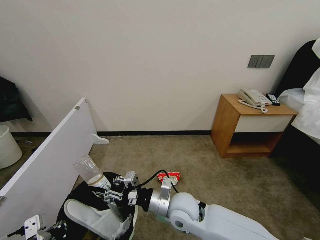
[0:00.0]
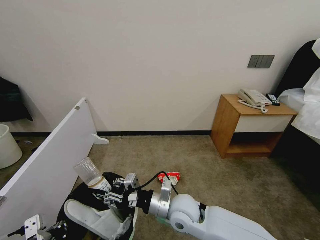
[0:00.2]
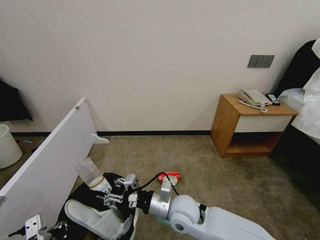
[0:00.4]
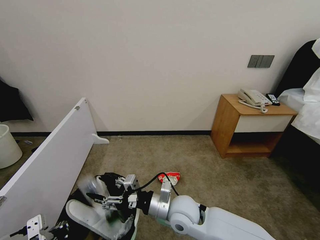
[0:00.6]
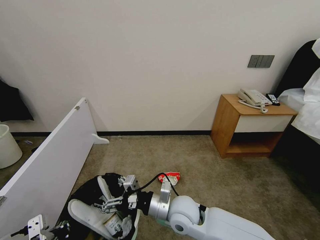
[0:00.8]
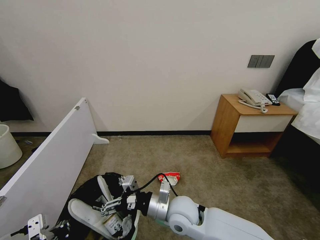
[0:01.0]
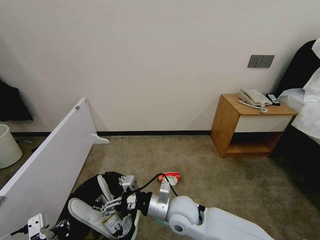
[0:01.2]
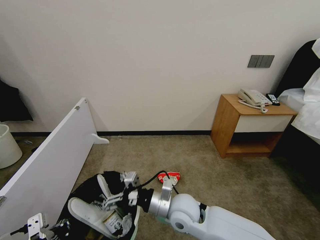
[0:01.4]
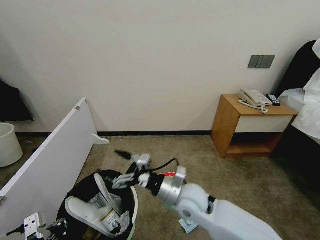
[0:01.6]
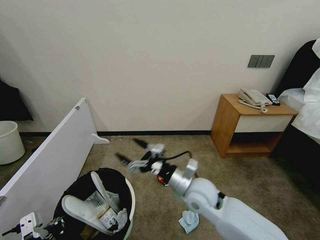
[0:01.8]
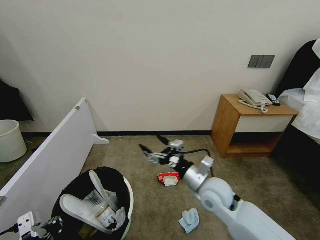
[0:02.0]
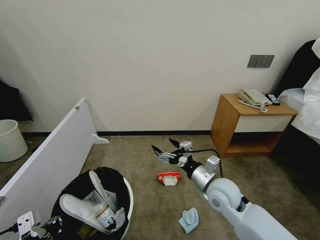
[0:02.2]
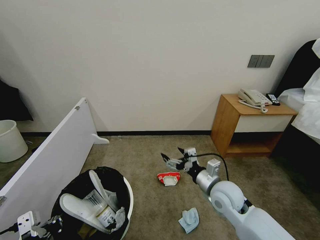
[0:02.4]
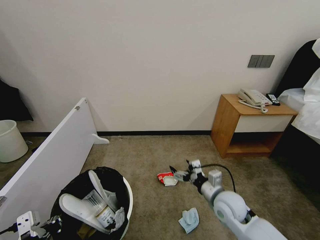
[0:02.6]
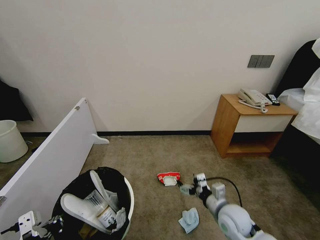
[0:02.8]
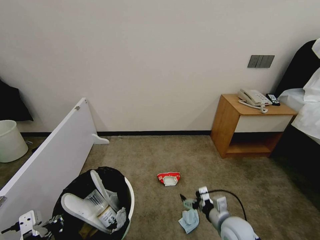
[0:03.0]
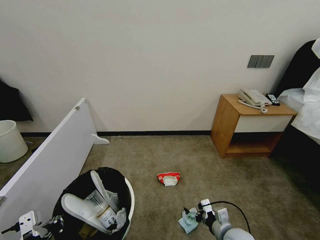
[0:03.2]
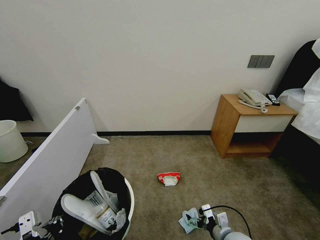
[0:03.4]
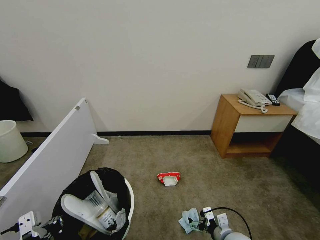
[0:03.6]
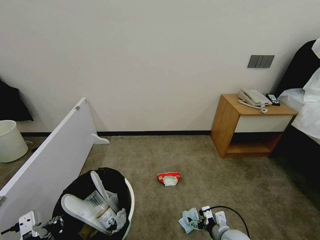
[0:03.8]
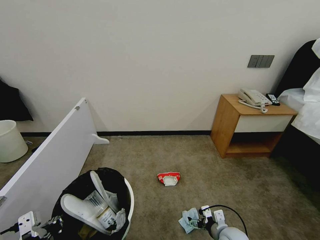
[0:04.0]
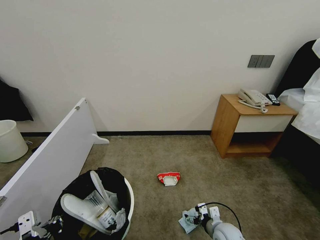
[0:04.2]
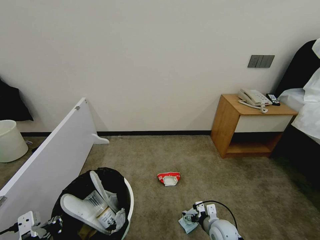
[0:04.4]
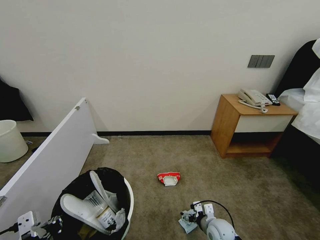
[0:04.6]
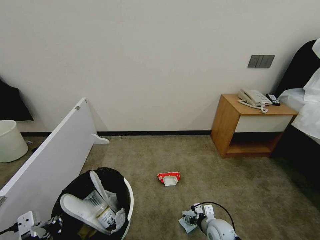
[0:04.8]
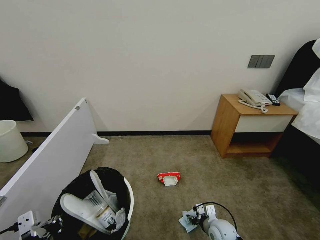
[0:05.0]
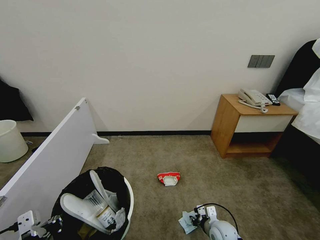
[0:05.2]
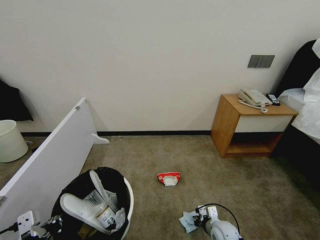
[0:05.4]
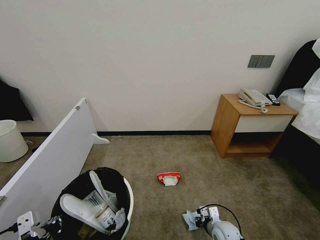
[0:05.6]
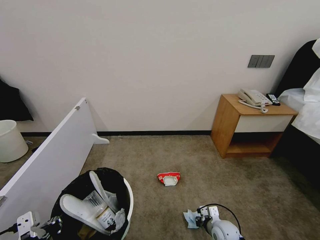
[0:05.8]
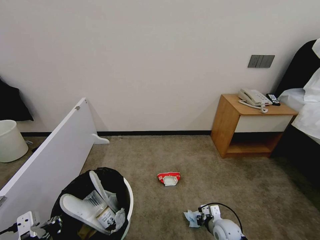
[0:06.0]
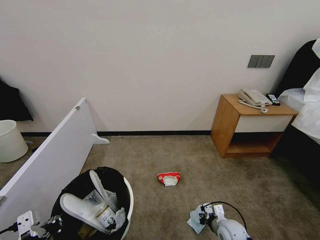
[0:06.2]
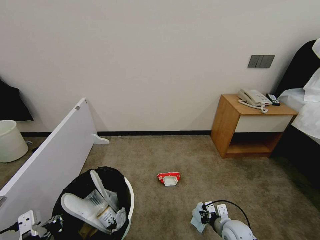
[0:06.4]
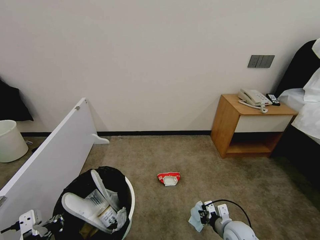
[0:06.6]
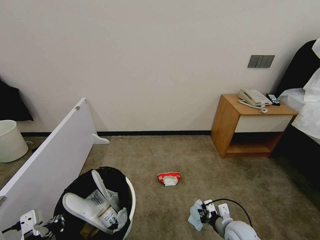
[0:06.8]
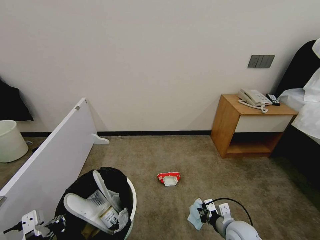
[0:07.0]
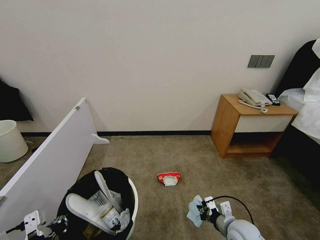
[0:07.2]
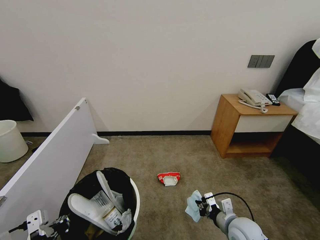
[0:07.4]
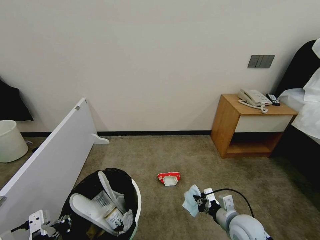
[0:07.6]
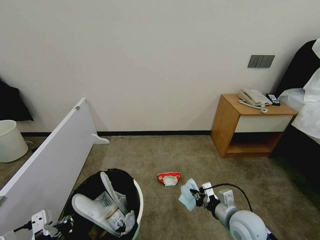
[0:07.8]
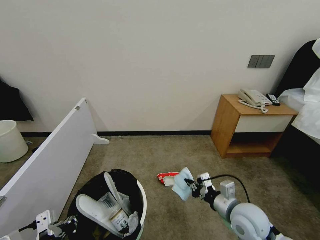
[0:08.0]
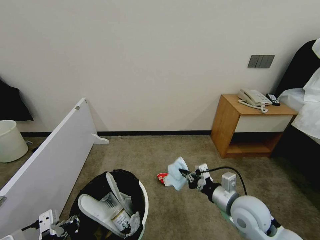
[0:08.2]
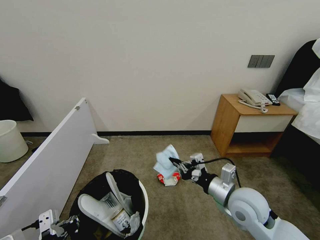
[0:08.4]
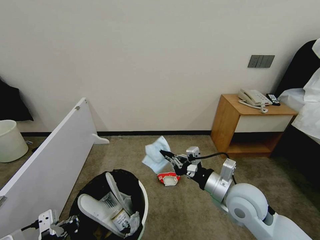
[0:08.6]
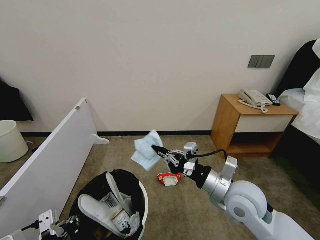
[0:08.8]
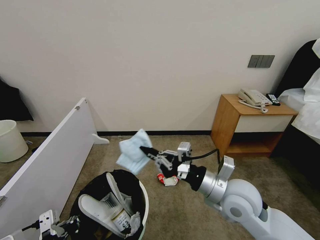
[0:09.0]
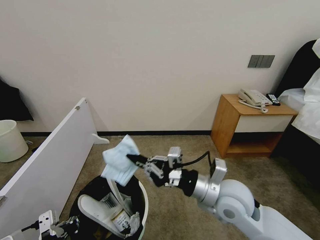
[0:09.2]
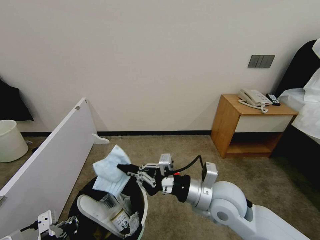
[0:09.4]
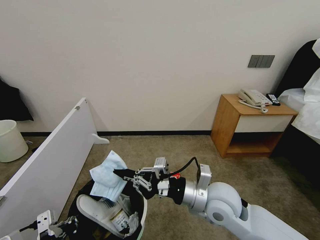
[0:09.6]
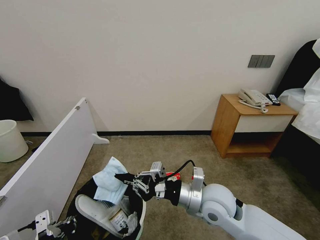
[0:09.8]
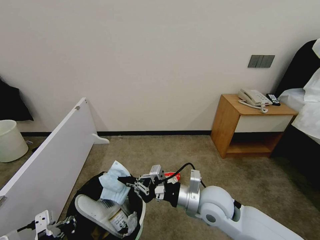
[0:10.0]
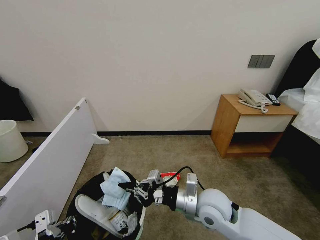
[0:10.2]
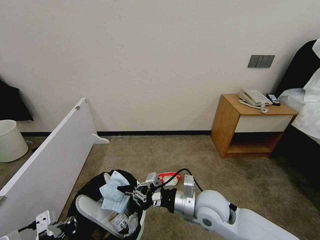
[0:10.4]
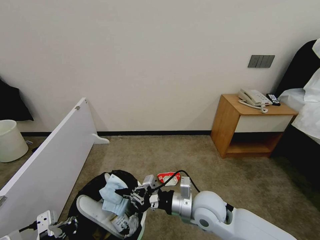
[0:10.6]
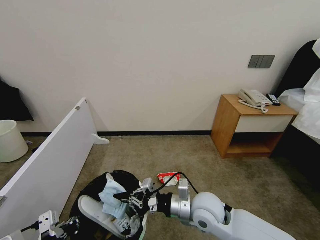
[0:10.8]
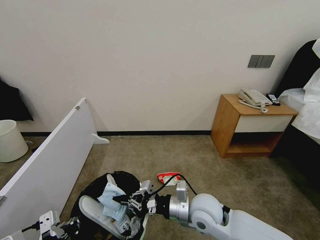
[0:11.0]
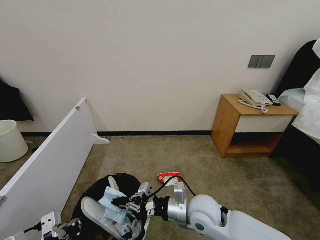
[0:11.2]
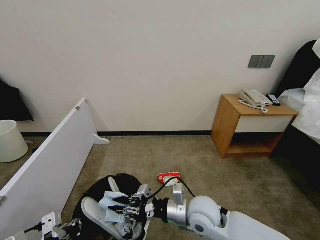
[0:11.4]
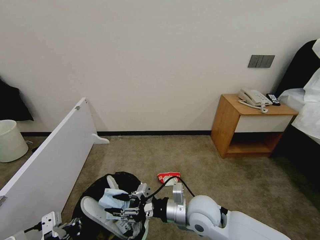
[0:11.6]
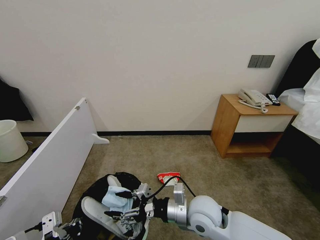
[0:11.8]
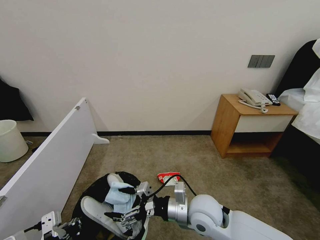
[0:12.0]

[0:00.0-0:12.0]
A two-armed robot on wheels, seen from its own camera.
Task of the whole recording: Pick up the trash bin, then pick up the garbage from the floor and place it into the trash bin.
0:00.0 to 0:01.6: The right gripper opens.
0:01.6 to 0:03.0: The right gripper heads to the right and downward, covering approximately 20 cm.
0:03.0 to 0:04.4: The right gripper goes approximately 10 cm downward.
0:04.4 to 0:06.0: The right gripper closes its fingers.
0:06.0 to 0:07.6: The right gripper heads upward, covering some 15 cm.
0:07.6 to 0:09.0: The right gripper moves upward and to the left, roughly 20 cm.
0:09.0 to 0:10.4: The right gripper moves downward and to the left, roughly 10 cm.
0:10.4 to 0:12.0: The right gripper opens its fingers.

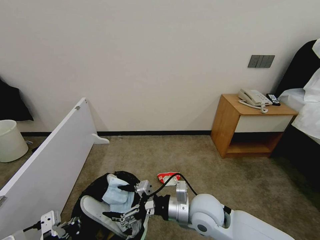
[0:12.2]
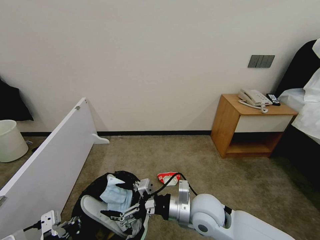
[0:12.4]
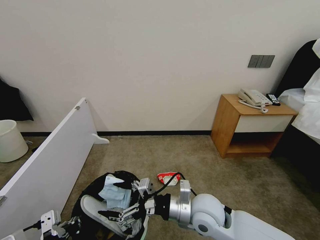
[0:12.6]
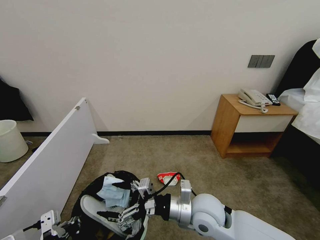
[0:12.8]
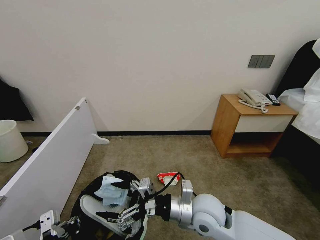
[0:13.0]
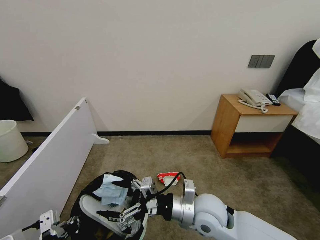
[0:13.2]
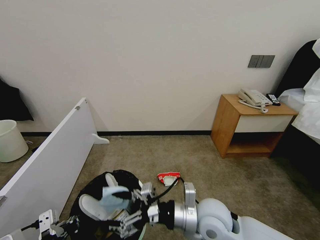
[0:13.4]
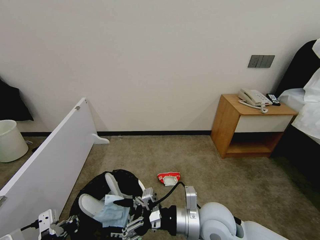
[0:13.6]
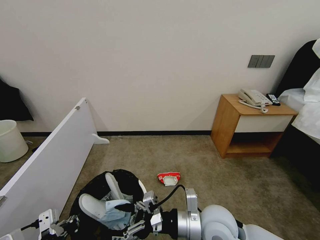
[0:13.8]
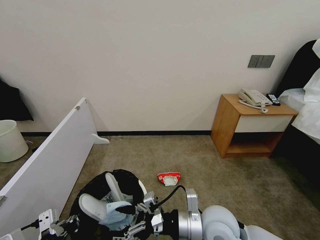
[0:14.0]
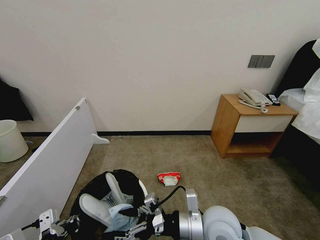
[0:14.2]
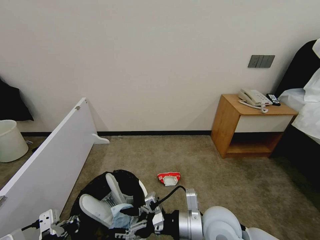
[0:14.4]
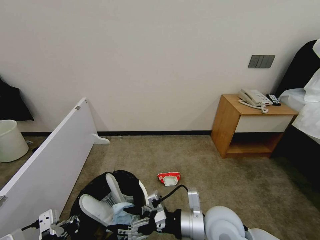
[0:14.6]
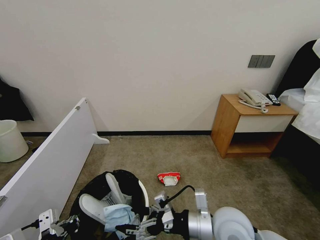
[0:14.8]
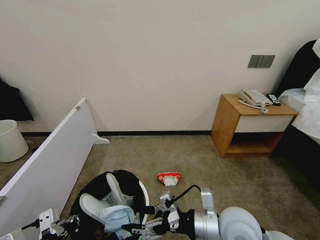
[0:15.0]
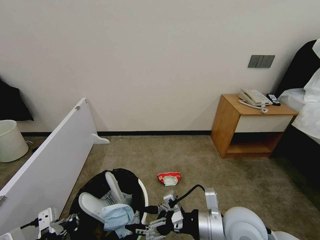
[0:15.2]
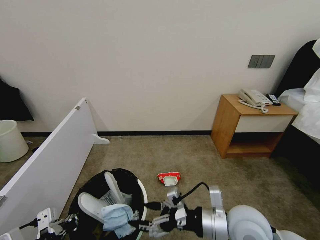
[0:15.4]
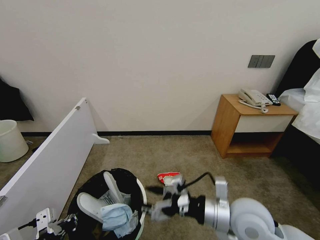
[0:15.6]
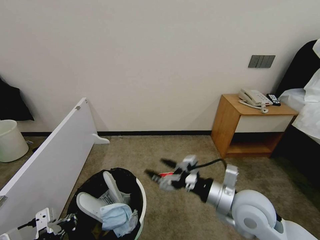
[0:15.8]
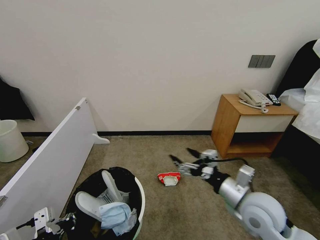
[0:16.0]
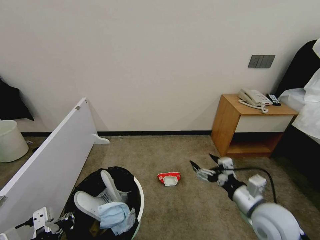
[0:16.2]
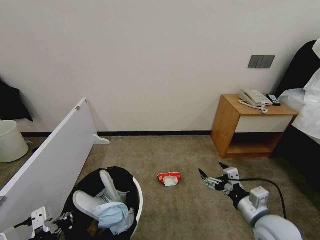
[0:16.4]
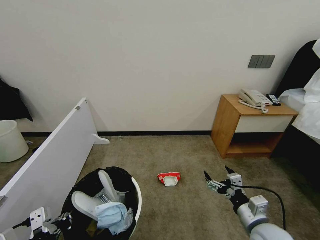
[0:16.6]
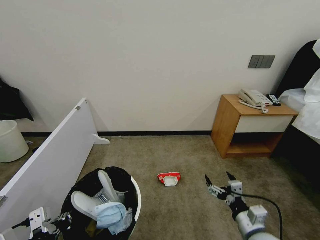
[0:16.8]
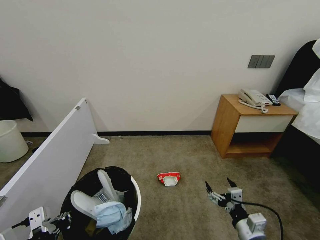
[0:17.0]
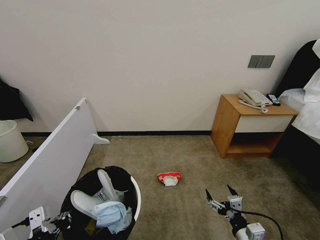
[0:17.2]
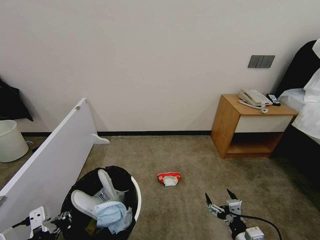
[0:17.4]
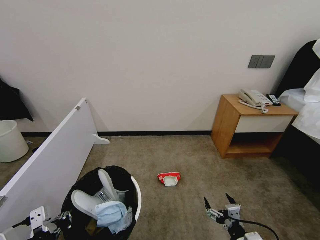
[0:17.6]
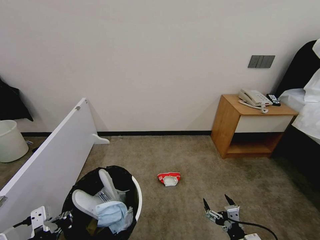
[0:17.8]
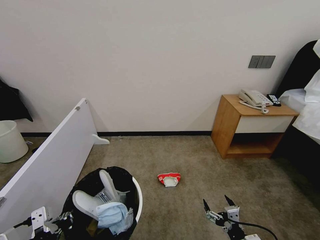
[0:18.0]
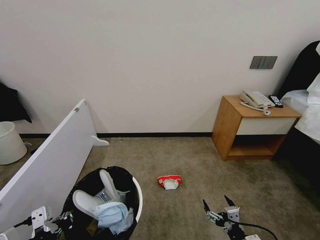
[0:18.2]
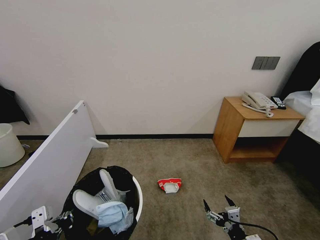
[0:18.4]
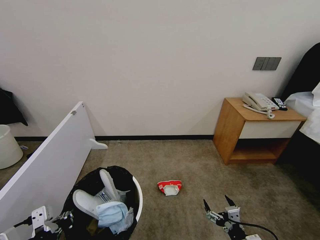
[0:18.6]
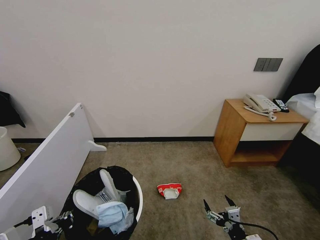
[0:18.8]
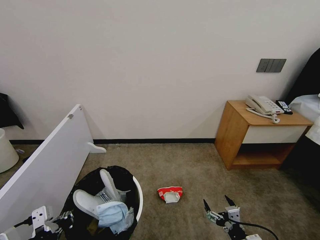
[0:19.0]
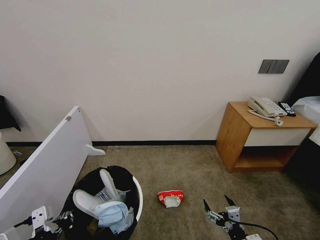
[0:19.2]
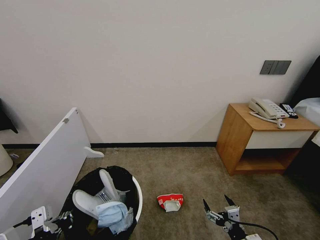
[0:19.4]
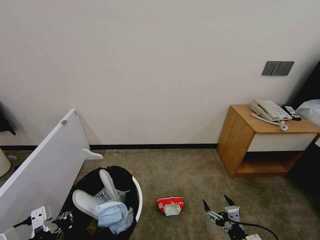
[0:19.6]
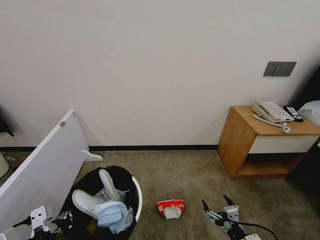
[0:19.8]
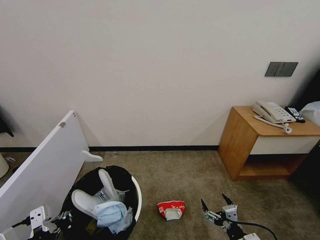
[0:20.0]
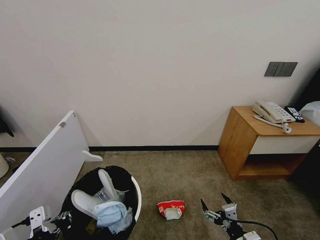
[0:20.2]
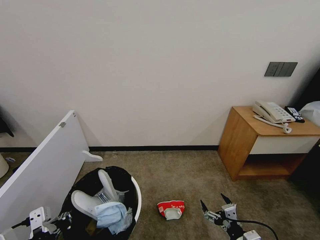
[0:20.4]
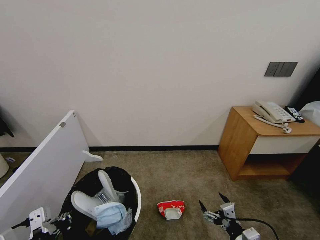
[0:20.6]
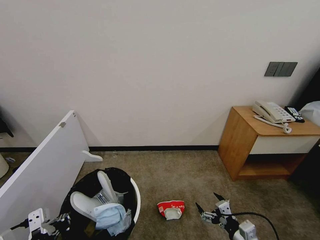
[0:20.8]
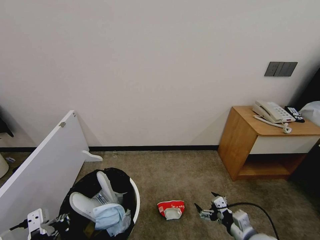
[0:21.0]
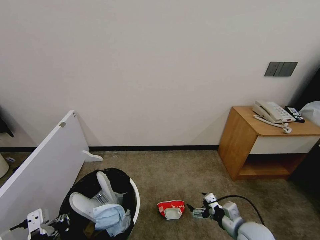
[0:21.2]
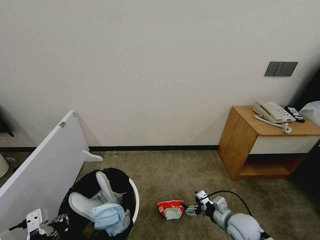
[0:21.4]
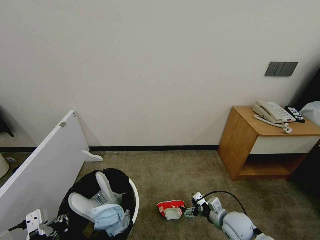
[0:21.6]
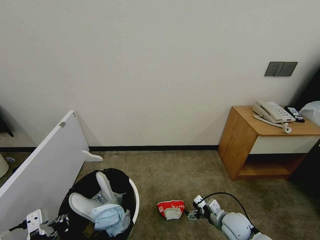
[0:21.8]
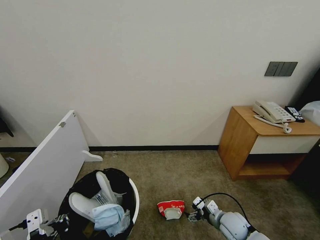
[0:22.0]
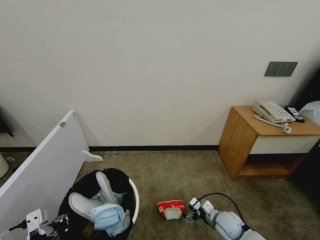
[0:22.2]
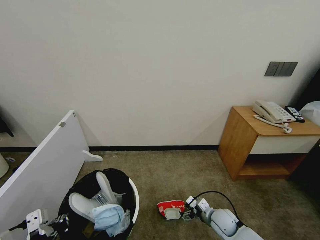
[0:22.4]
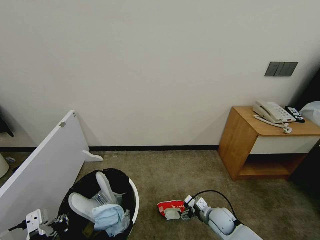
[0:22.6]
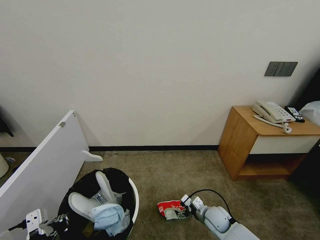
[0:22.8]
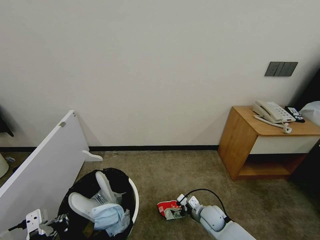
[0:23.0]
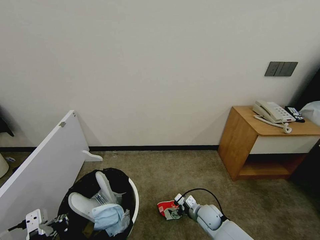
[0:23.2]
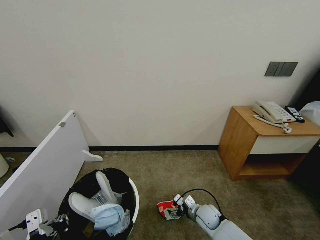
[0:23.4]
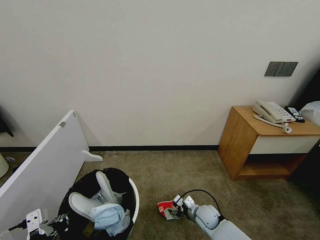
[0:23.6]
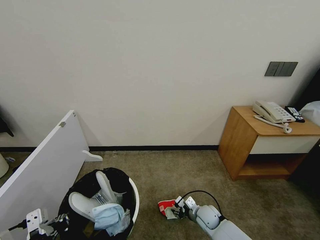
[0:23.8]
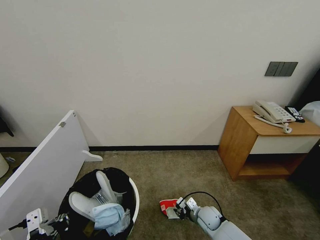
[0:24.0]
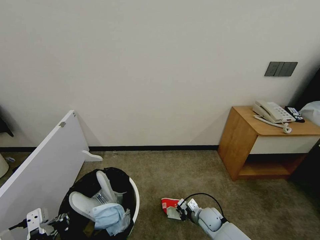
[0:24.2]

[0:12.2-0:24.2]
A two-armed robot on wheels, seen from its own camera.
Task of the whole recording: Pick up the trash bin, then pick up the garbage from the floor and place it into the trash bin.
0:12.2 to 0:13.8: The grippers make only small movements.
0:13.8 to 0:15.2: The right gripper shifts some 5 cm to the right.
0:15.2 to 0:16.6: The right gripper travels to the right and downward by approximately 15 cm.
0:16.6 to 0:18.2: The right gripper travels downward and backward by about 10 cm.
0:19.8 to 0:21.2: The right gripper moves forward, approximately 10 cm.
0:21.2 to 0:22.6: The right gripper shifts approximately 15 cm downward, forward and to the left.
0:22.6 to 0:24.2: The right gripper ends up approximately 5 cm from where it was, and closes its fingers.
